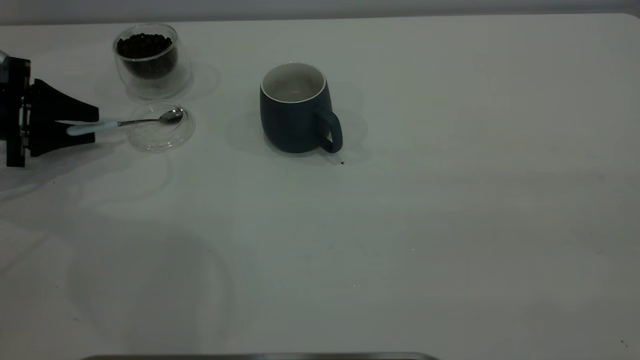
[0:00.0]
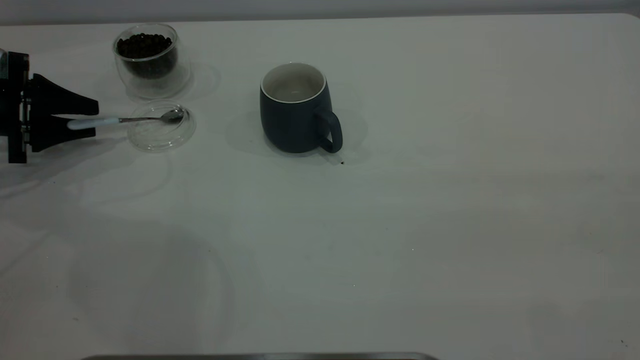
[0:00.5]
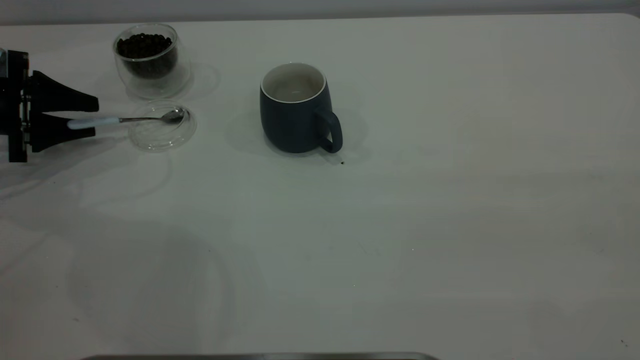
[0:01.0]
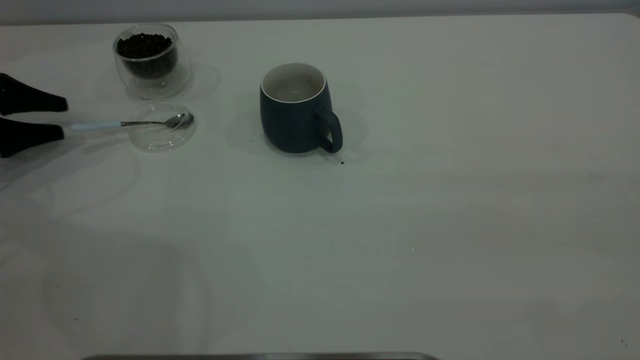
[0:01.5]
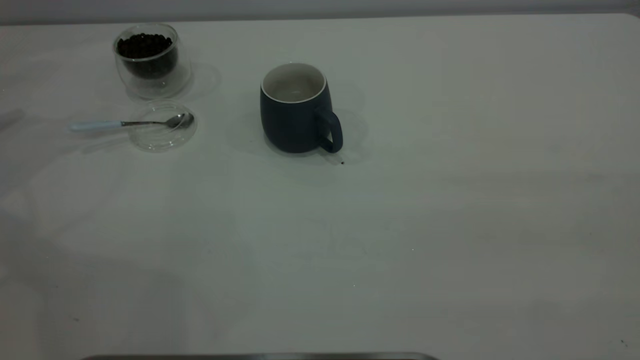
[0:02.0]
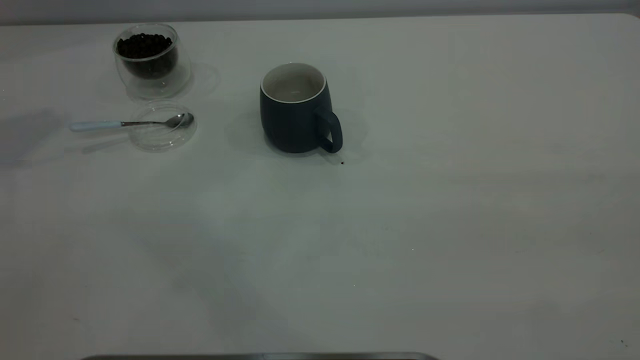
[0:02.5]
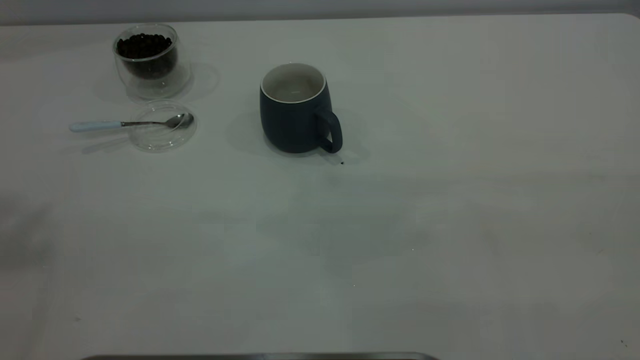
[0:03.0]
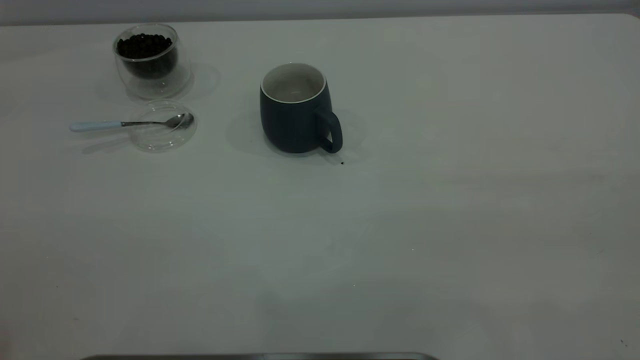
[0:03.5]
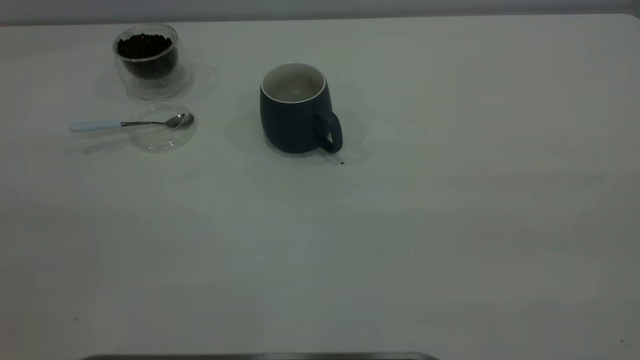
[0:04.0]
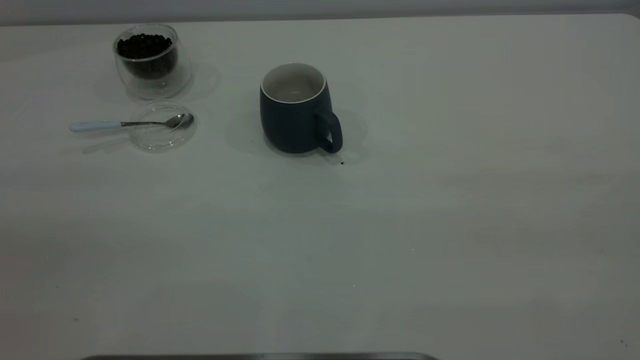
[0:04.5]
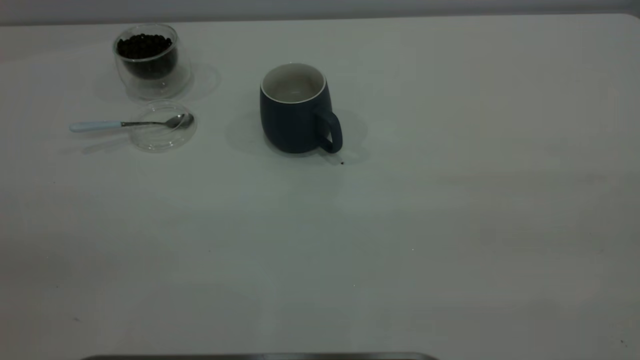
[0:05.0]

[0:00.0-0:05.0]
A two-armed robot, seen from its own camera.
Task of the whole recording: the right gripper place the grey cup in the center of the table, the left gripper take the blue spoon from the cup lid and scoop out the coffee beans from the coffee cup and put them into the grey cup, the left gripper put the spoon back into the cup lid.
0:00.0 to 0:02.5: The left gripper is displaced upward by some 35 cm.

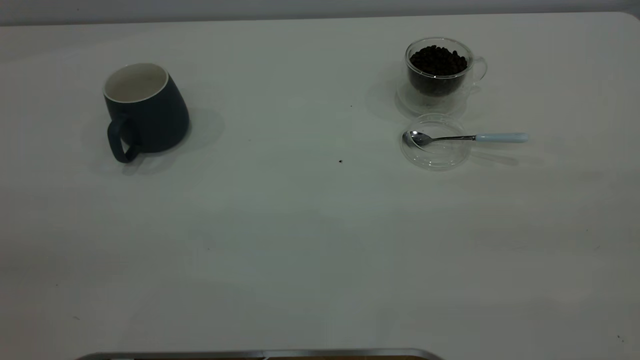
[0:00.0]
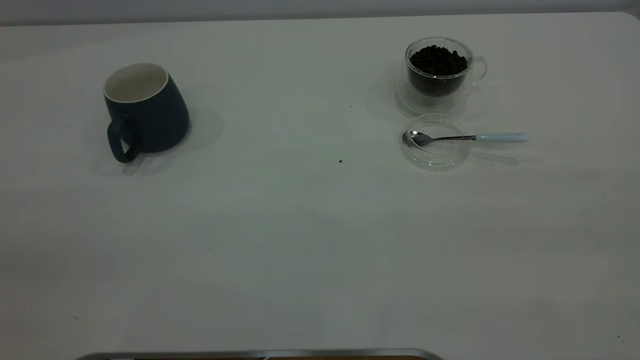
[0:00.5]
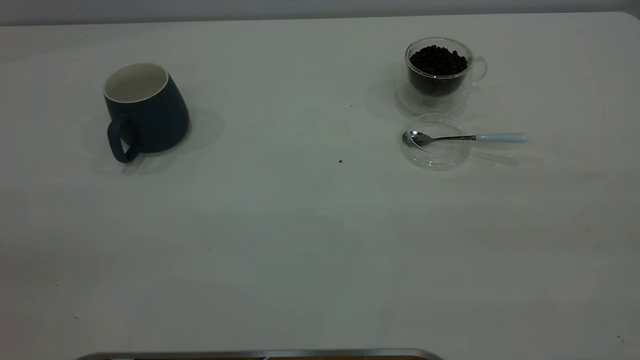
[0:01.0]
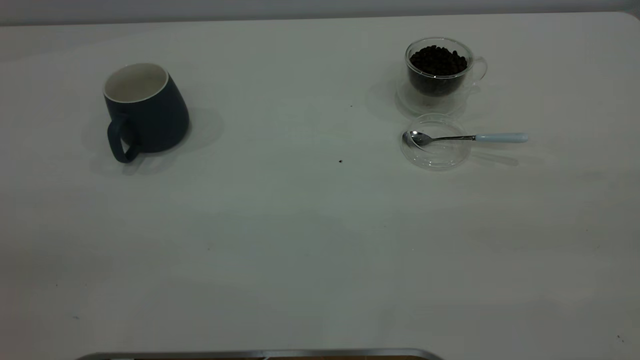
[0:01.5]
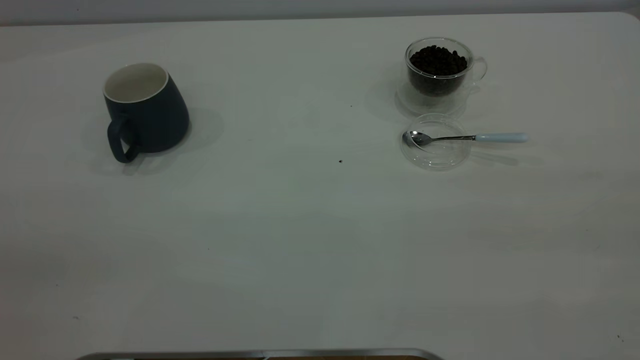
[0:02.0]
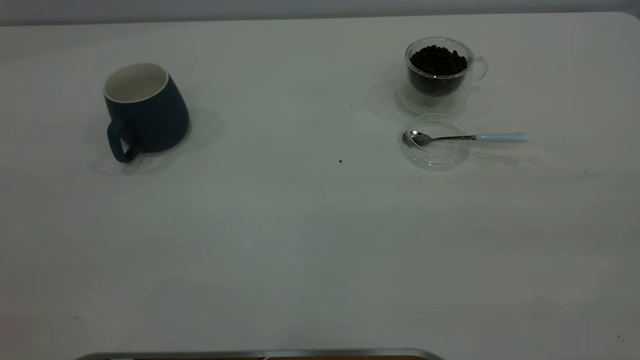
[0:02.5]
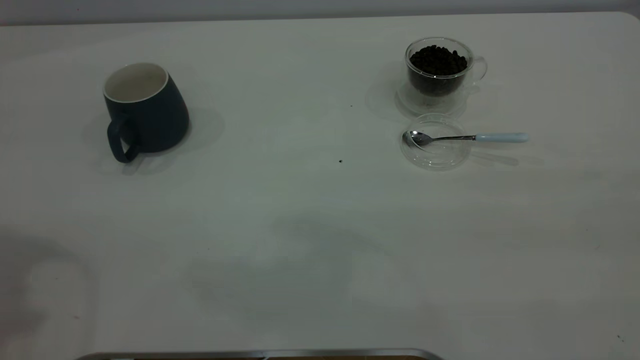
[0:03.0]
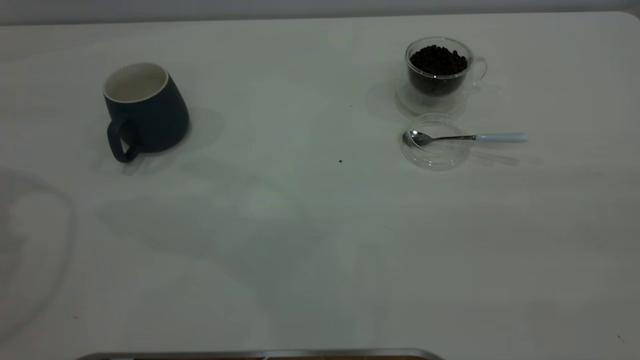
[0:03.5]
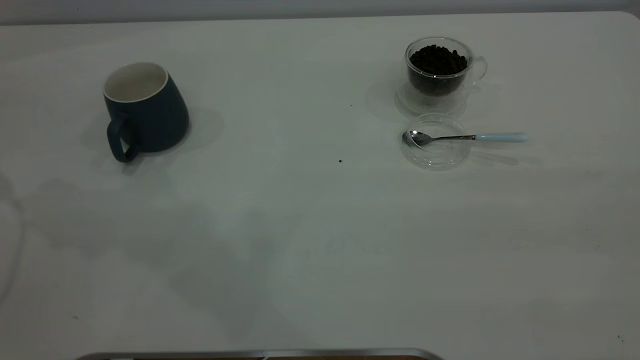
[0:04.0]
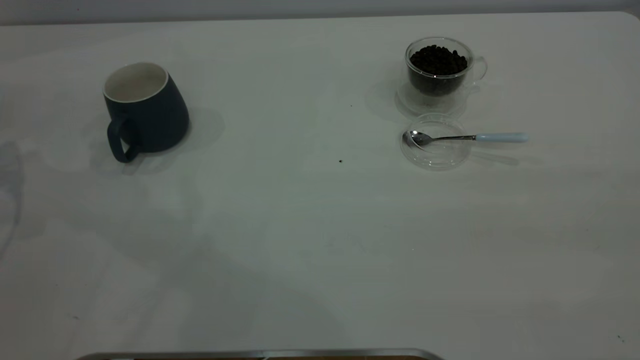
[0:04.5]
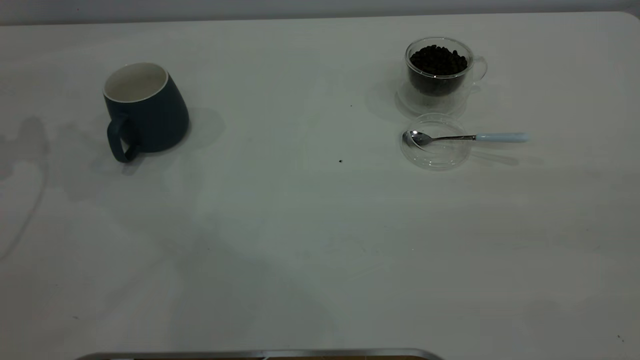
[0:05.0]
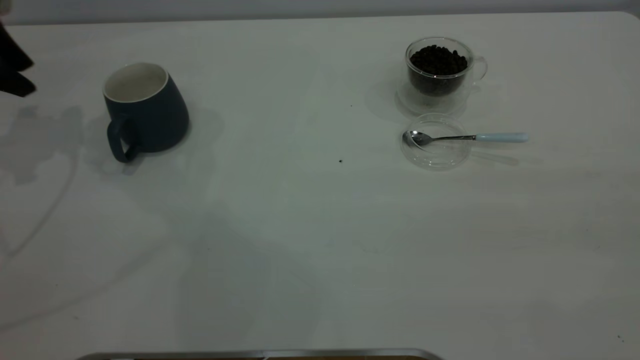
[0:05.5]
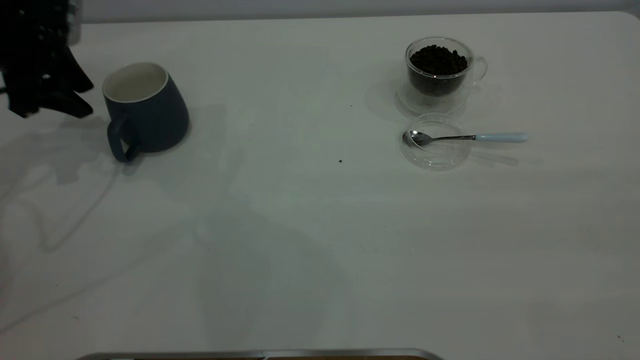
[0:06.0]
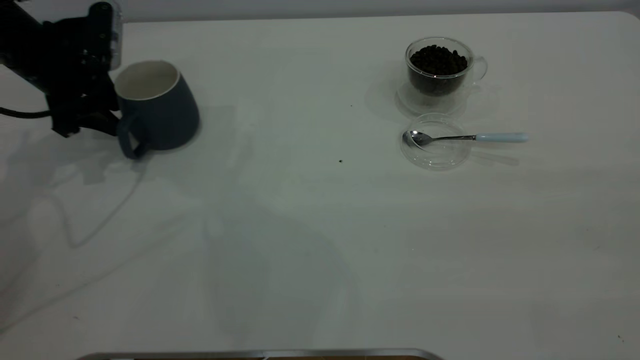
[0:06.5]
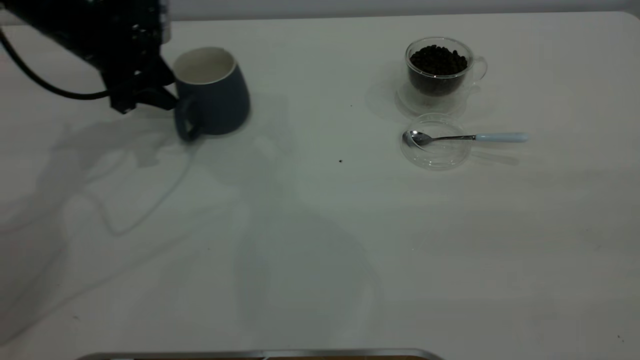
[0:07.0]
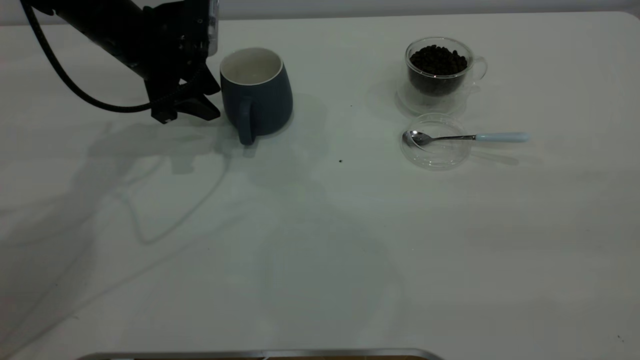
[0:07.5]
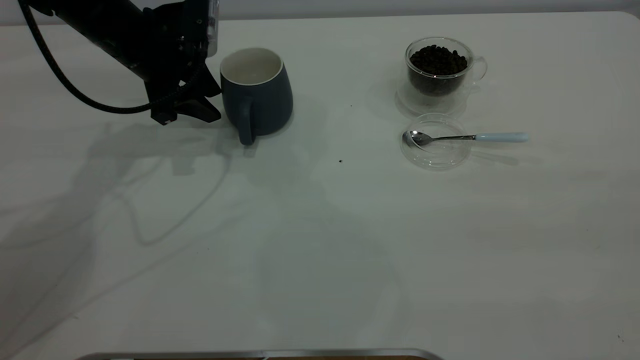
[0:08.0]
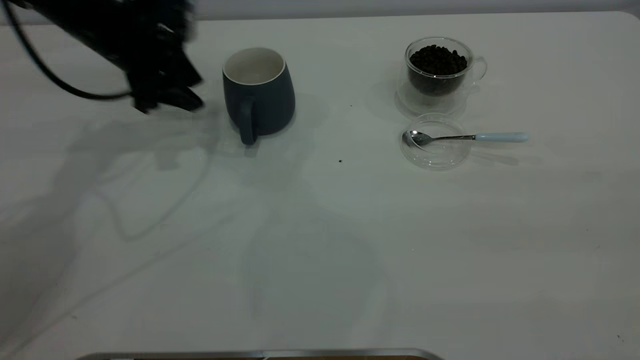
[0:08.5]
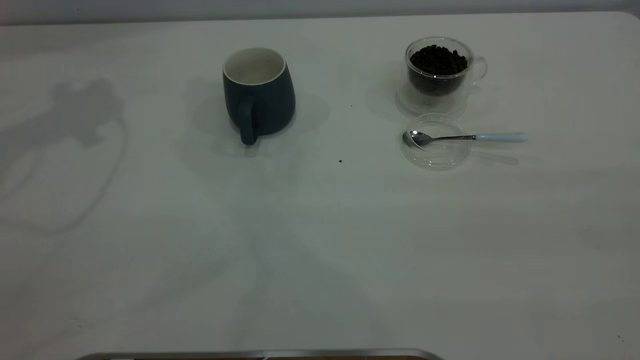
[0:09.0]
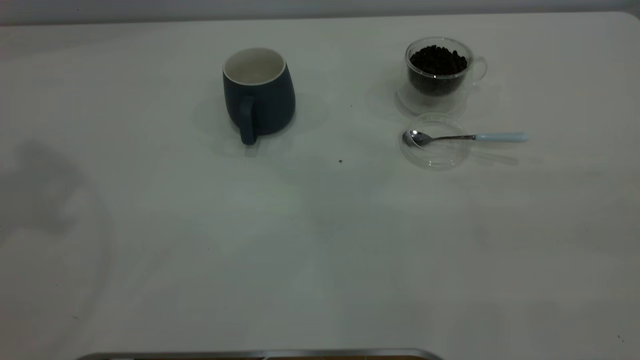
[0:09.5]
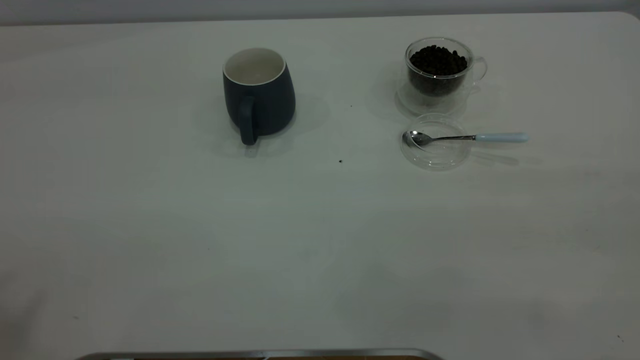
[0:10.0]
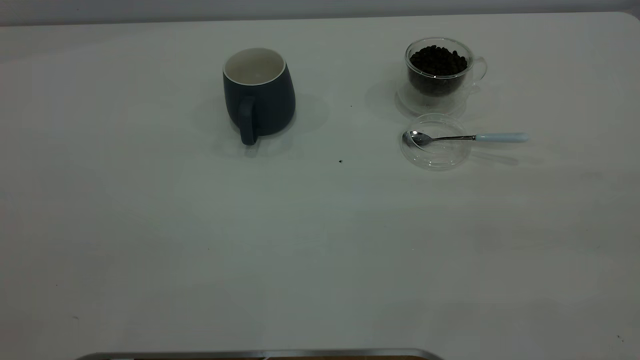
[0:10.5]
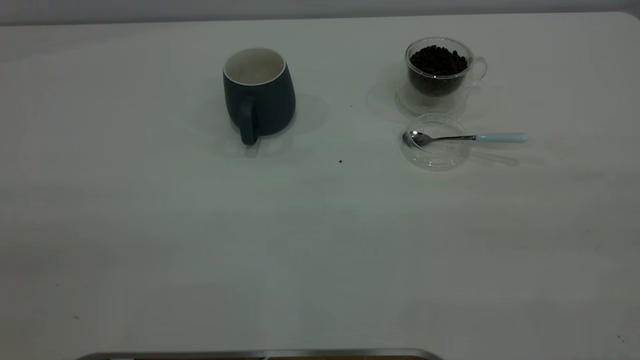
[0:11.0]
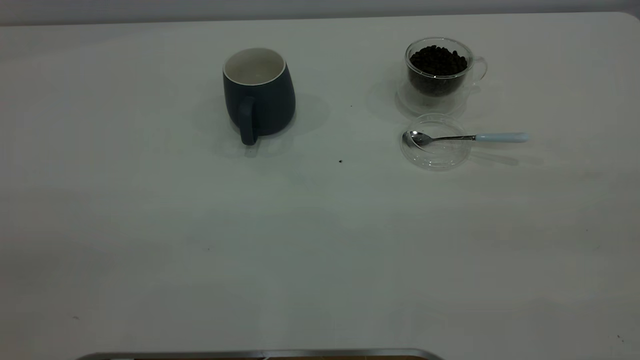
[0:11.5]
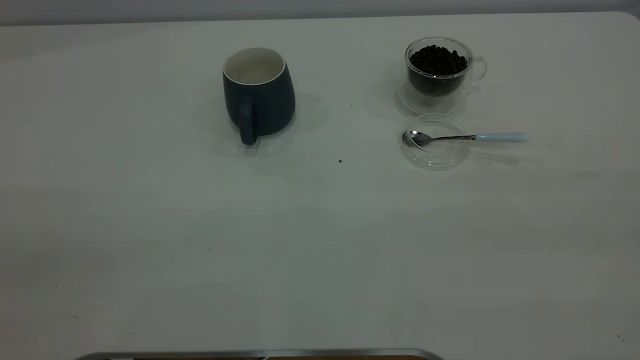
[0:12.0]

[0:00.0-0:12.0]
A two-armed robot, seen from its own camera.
Task of the whole recording: the left gripper place the grey cup in the center of the table, the right gripper take the blue spoon from the cup lid and scoop out the coffee beans from the coffee cup and put them into the grey cup, the right gripper put the spoon back into the cup lid.
Step, 0:00.0 to 0:08.0: Move the cup to the center of view.
0:04.0 to 0:06.0: The left gripper travels forward, downward and to the right by some 20 cm.
0:06.0 to 0:08.0: The left gripper heads to the right, covering approximately 15 cm.
0:08.0 to 0:10.0: The left gripper is displaced upward and backward by roughly 50 cm.

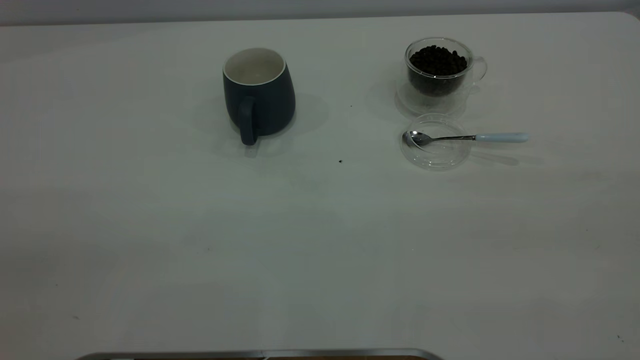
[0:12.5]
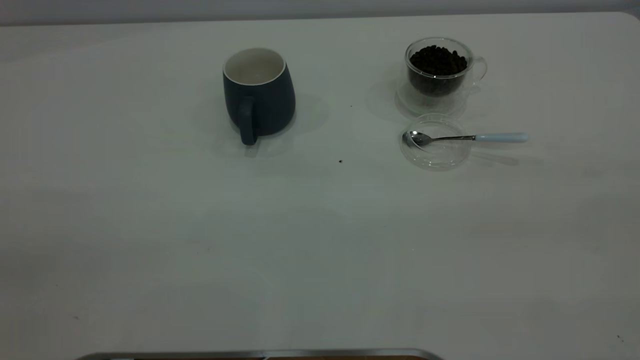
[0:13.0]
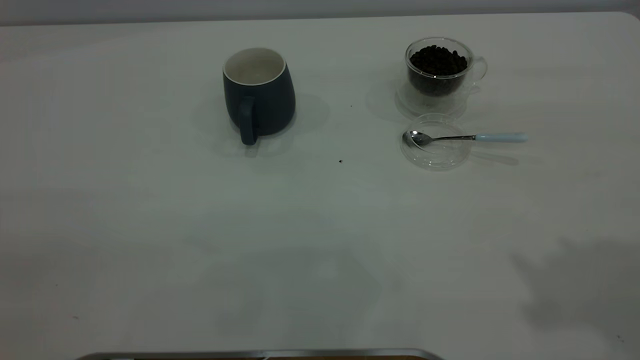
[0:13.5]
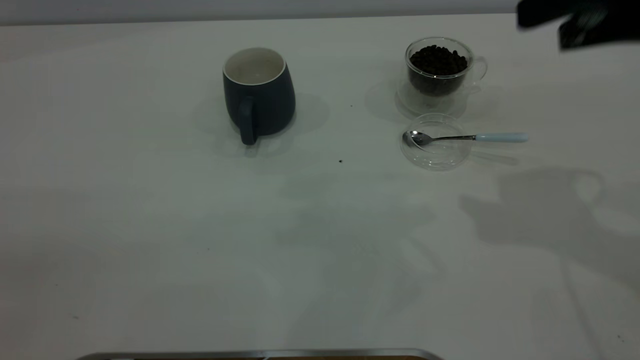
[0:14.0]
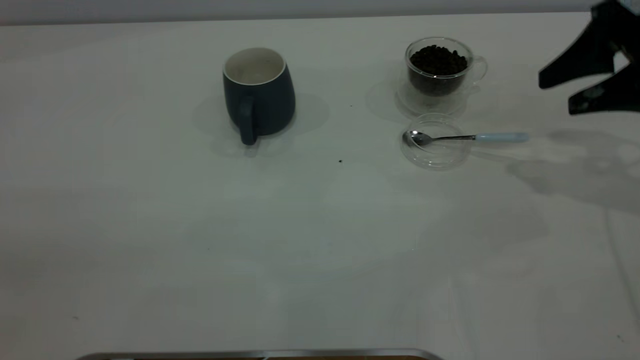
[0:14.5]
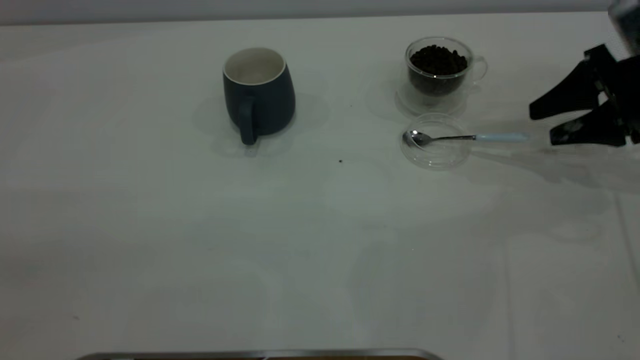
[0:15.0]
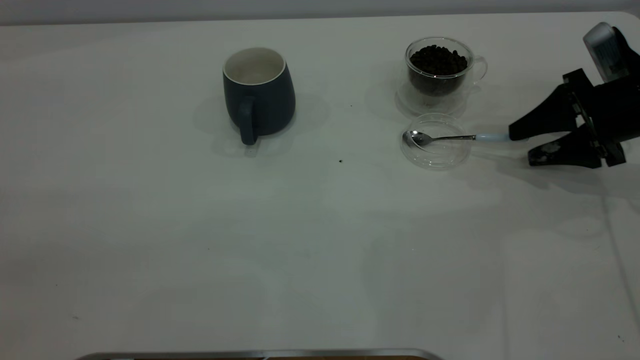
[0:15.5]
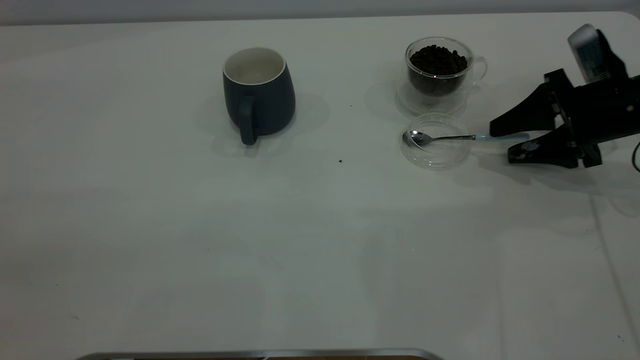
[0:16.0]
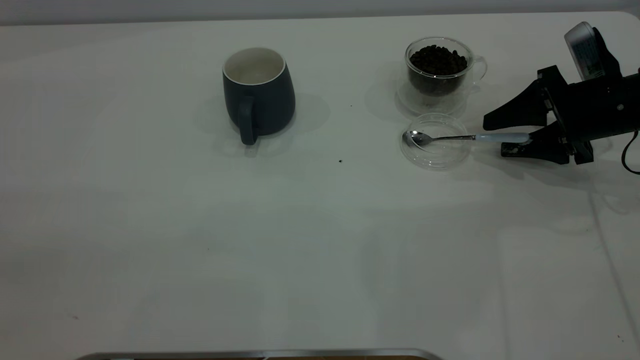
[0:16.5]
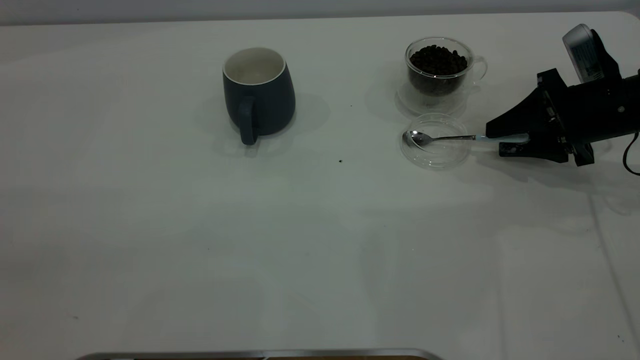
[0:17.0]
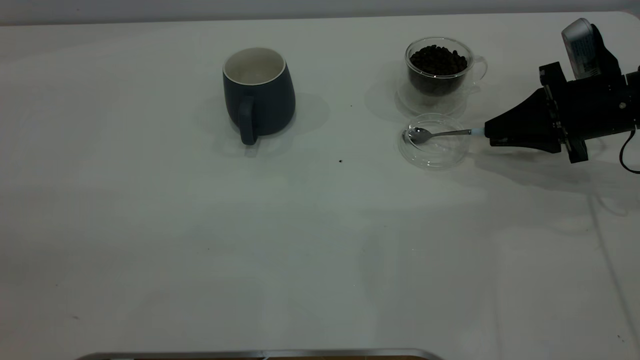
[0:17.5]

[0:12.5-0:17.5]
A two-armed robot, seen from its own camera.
Task of the whole recording: the left gripper place the grey cup in the center of the table, the right gripper take the blue spoon from the cup lid and scoop out the coffee beans from the coffee cup and put them into the grey cup, the right gripper put the spoon back into the cup lid.
0:12.5 to 0:15.0: The right gripper moves forward and downward, some 50 cm.
0:15.0 to 0:17.5: The right gripper shifts by roughly 5 cm, and closes its fingers.
